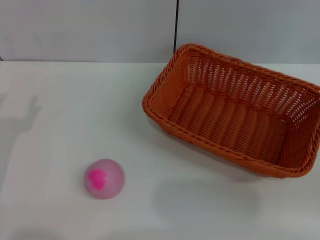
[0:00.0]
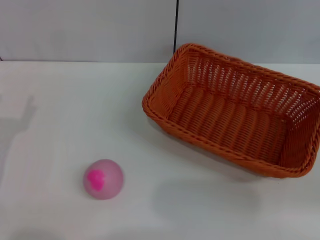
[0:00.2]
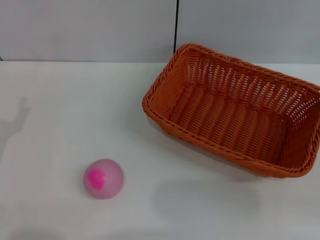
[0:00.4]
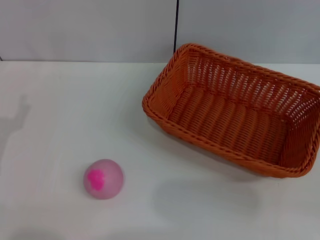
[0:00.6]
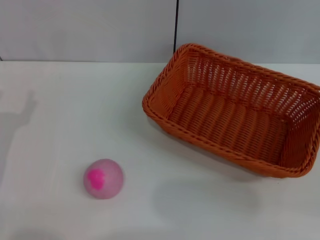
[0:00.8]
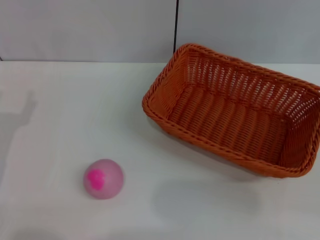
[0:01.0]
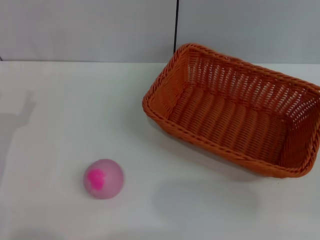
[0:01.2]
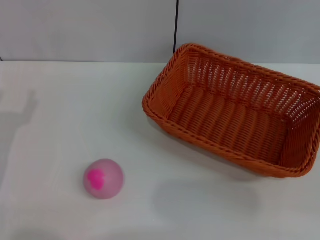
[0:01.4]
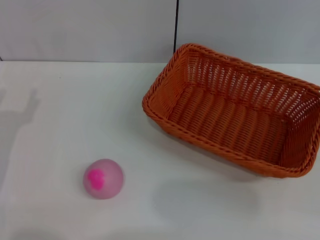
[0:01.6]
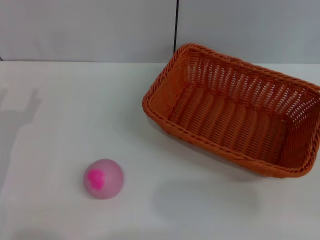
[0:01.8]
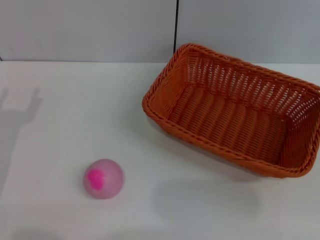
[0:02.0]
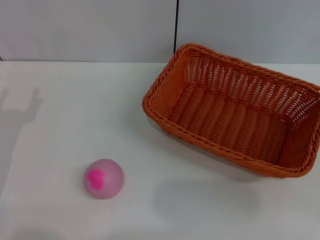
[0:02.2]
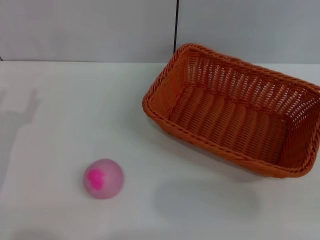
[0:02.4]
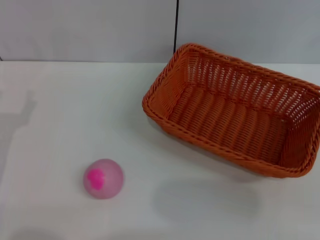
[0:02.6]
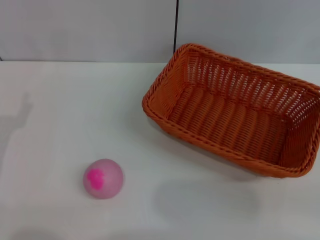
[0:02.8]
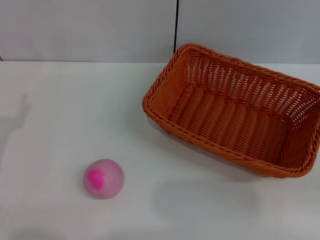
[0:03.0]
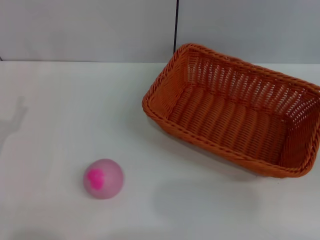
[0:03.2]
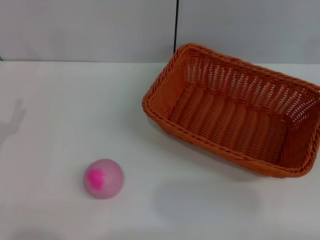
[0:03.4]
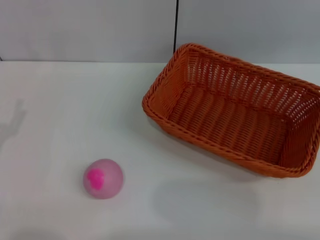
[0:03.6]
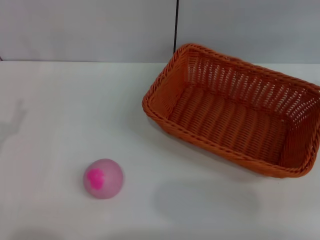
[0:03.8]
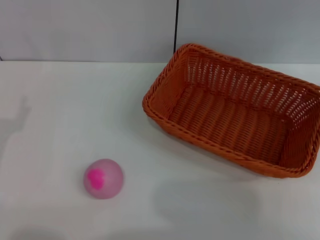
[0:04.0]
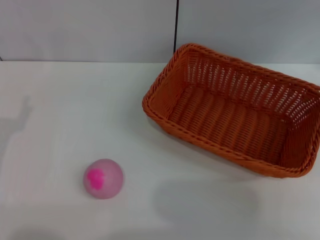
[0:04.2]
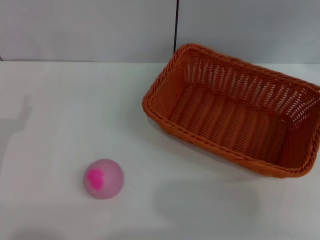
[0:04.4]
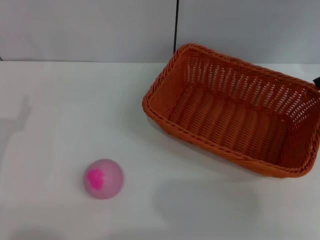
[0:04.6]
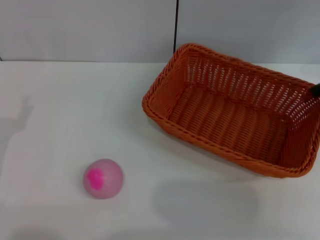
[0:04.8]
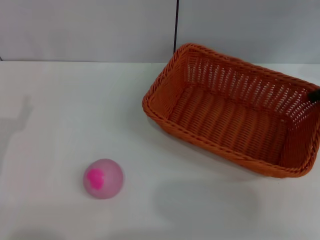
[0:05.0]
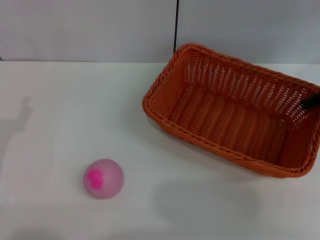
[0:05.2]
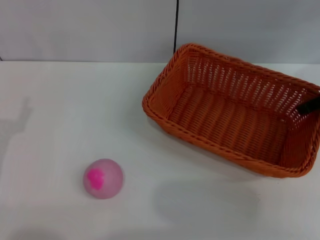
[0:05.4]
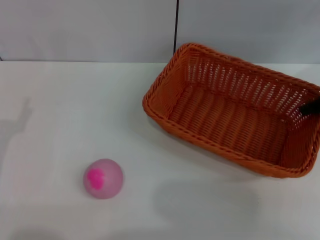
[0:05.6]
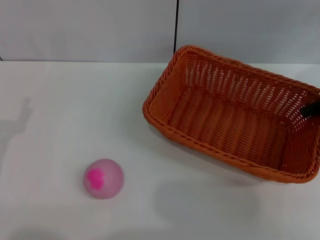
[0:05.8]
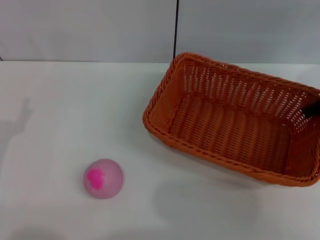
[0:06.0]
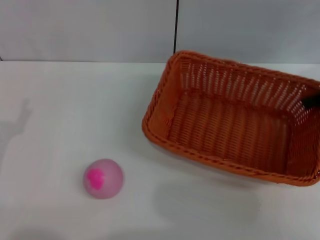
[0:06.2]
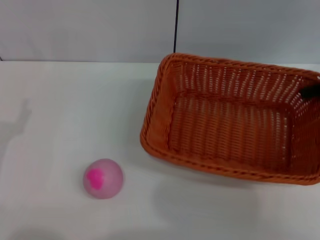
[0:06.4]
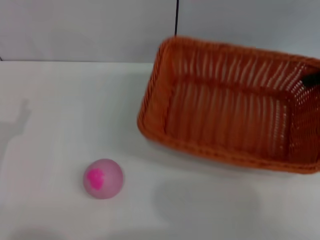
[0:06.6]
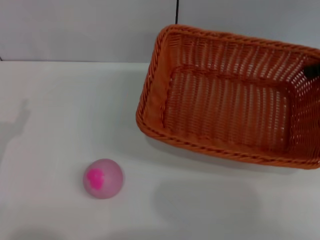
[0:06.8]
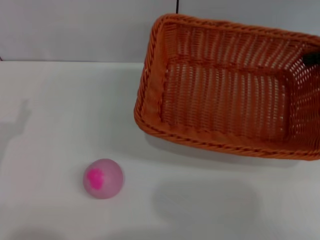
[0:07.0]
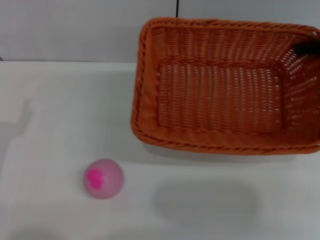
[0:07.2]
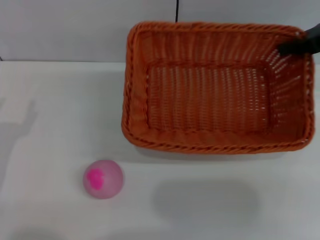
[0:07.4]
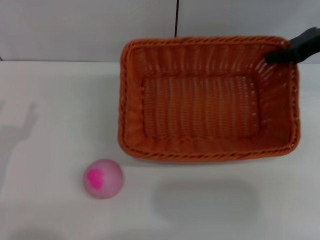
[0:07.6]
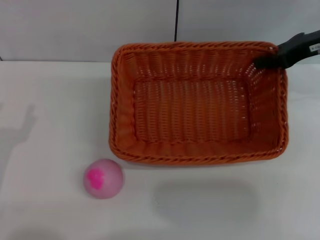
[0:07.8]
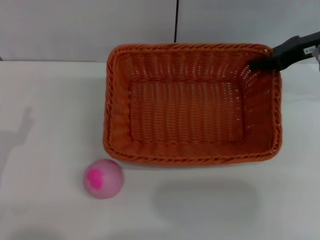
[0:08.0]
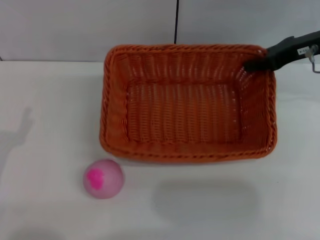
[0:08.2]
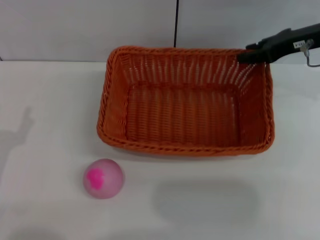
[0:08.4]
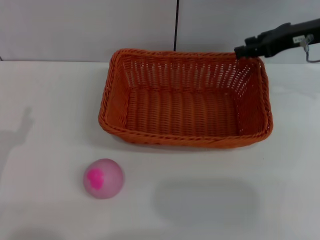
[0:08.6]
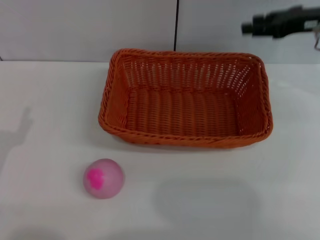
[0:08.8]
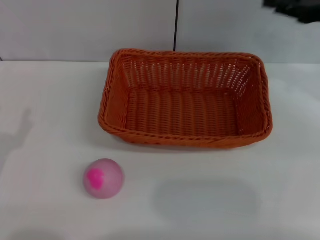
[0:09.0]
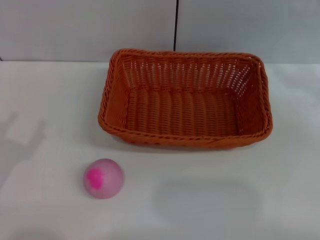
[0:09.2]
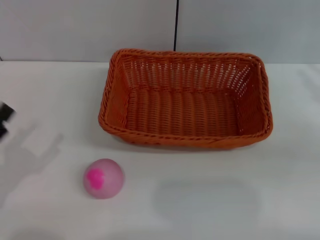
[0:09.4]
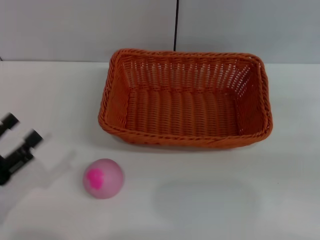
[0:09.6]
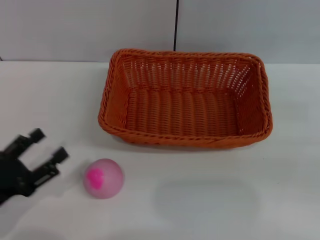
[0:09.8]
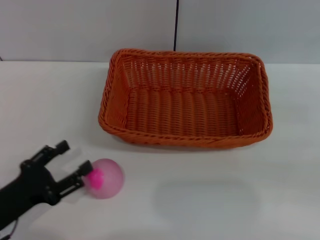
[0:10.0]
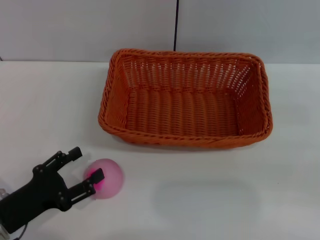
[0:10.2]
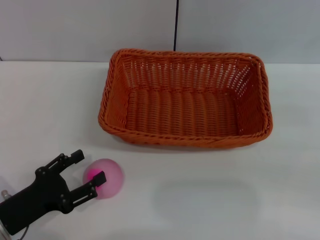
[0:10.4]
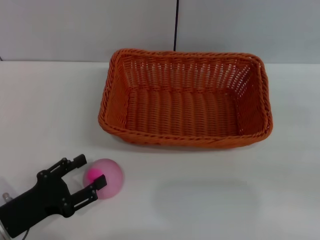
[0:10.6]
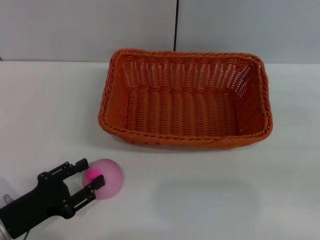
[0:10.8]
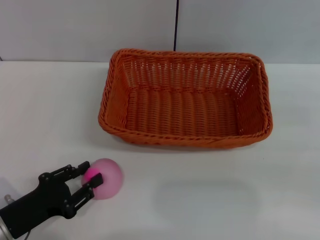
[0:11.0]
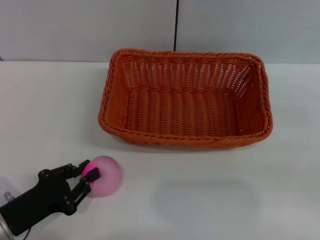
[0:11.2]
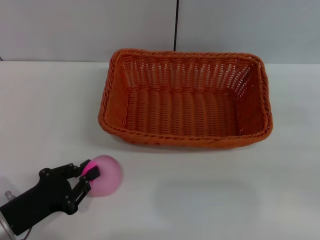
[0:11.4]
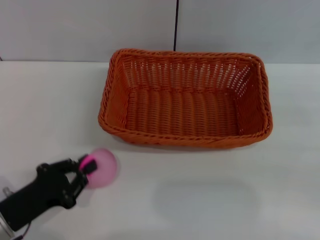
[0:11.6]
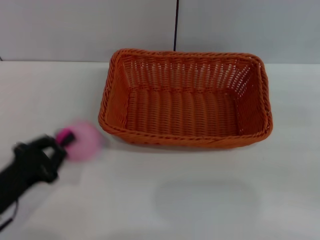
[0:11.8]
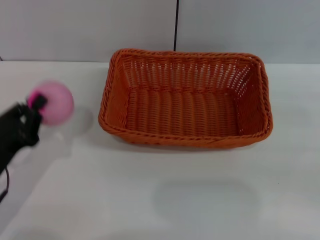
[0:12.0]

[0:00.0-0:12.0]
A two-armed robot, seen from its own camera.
Step, 0:00.0 to 0:06.8: Pick up the light basket with the right gripper.
Step, 0:07.0 to 0:09.0: Place the light basket in the center of view with the right gripper.
Step, 0:09.2 to 0:11.8: Pick up the peach with the left gripper.
0:04.4 to 0:06.0: The right gripper shifts roughly 10 cm downward, and closes.
0:06.0 to 0:07.6: The right gripper changes place by about 5 cm.
0:07.6 to 0:09.0: The right gripper is displaced backward by about 5 cm, and opens up.
0:09.0 to 0:10.4: The right gripper heads backward, to the right and downward, covering some 20 cm, while the left gripper moves approximately 5 cm.
0:10.4 to 0:12.0: The left gripper closes.

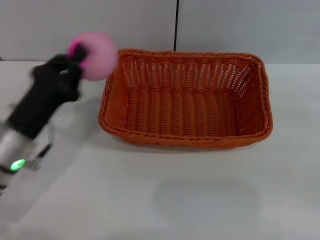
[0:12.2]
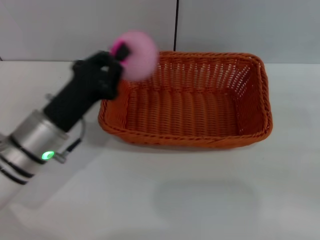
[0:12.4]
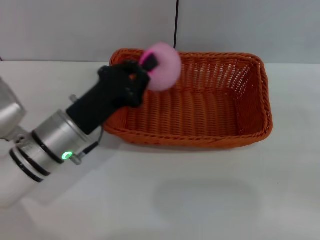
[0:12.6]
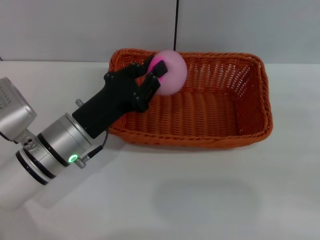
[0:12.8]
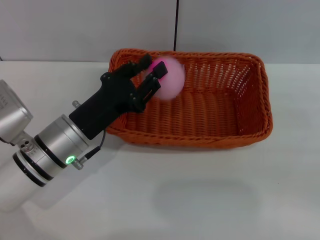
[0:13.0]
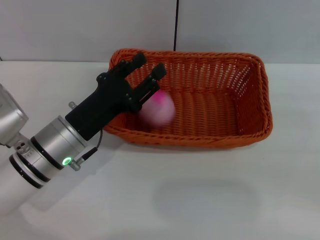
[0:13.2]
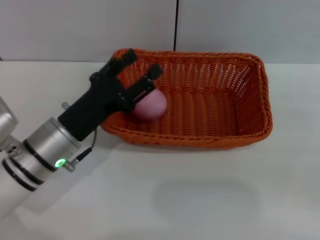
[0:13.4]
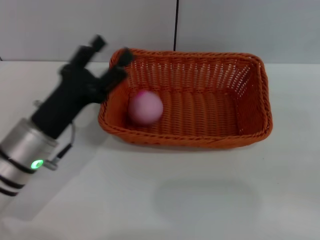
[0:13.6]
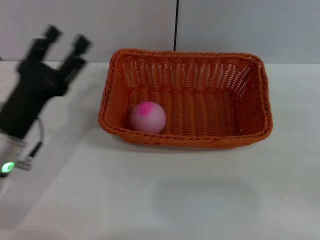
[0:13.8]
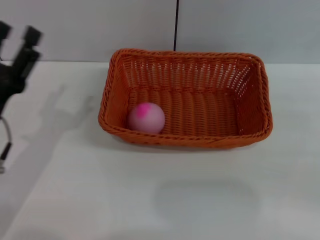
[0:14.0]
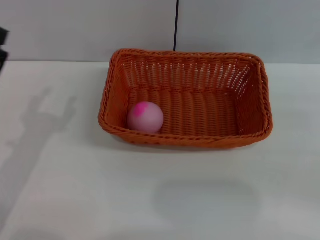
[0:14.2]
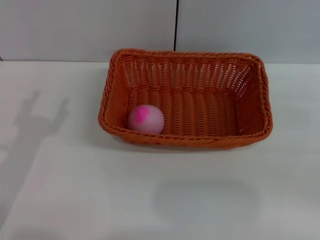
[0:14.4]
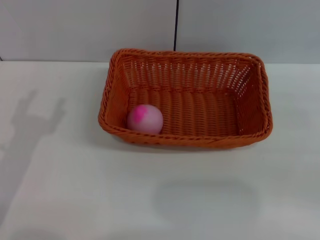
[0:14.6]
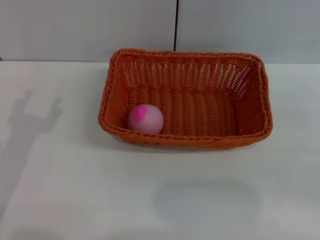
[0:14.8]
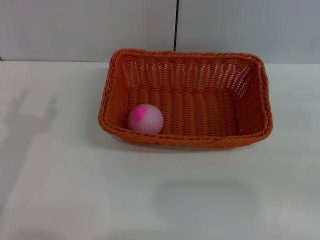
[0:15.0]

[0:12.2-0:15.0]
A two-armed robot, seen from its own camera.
Step, 0:12.2 to 0:13.2: Place the peach into the basket with the left gripper.
0:12.2 to 0:13.6: The left gripper opens.
0:13.6 to 0:15.0: The left gripper shifts approximately 10 cm to the left.

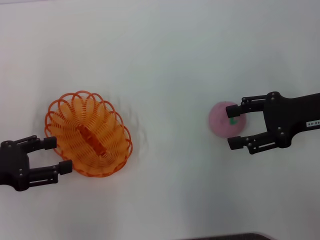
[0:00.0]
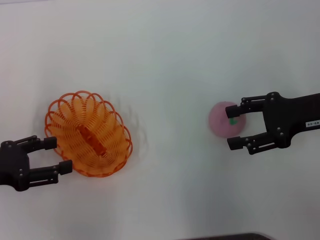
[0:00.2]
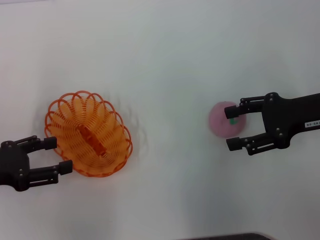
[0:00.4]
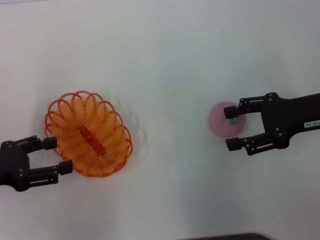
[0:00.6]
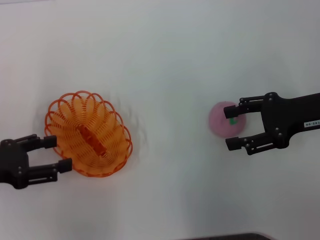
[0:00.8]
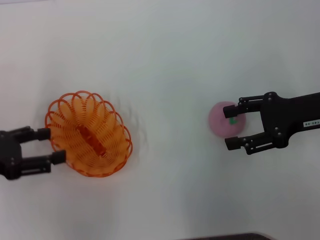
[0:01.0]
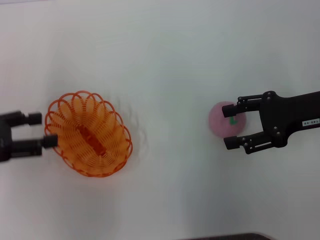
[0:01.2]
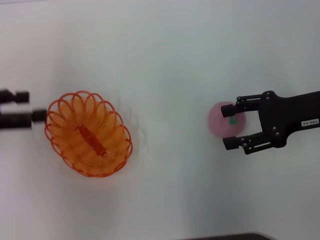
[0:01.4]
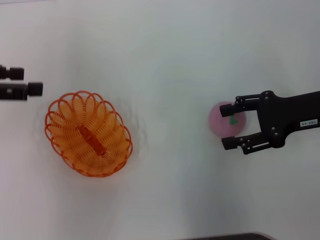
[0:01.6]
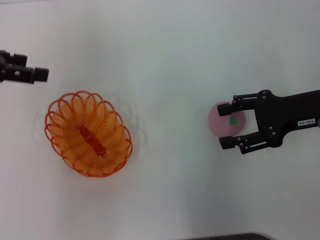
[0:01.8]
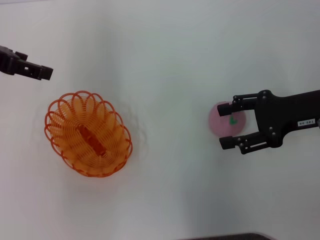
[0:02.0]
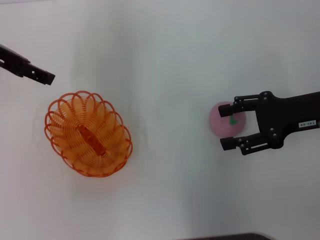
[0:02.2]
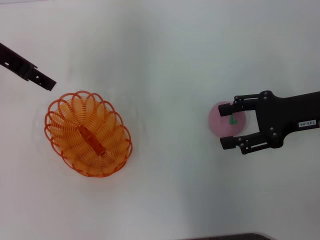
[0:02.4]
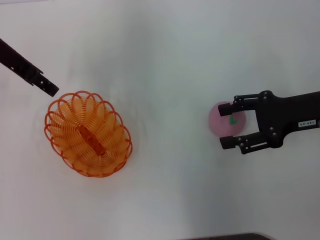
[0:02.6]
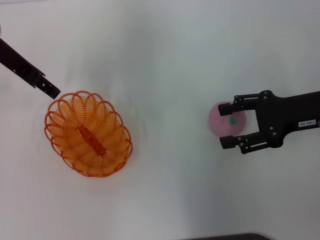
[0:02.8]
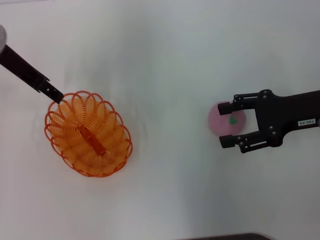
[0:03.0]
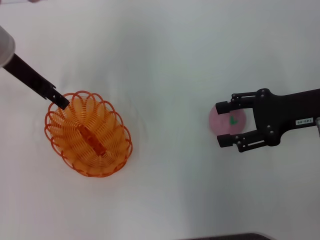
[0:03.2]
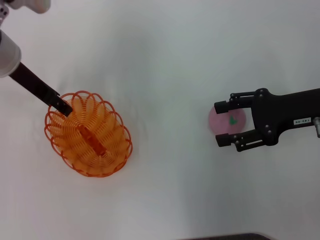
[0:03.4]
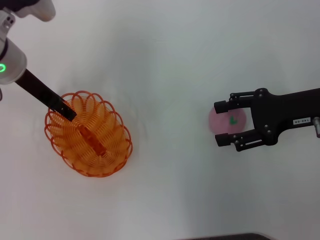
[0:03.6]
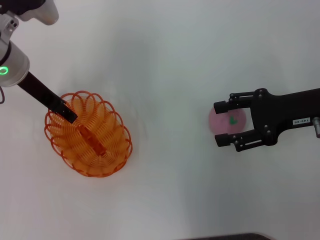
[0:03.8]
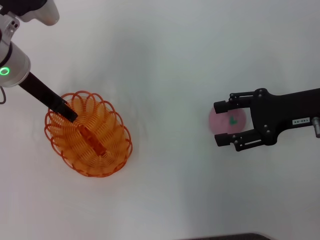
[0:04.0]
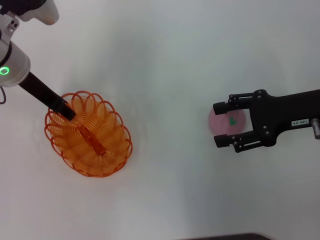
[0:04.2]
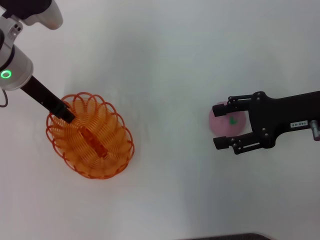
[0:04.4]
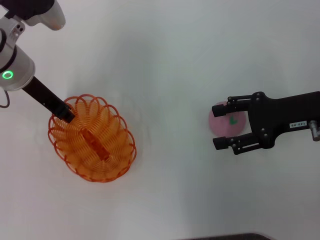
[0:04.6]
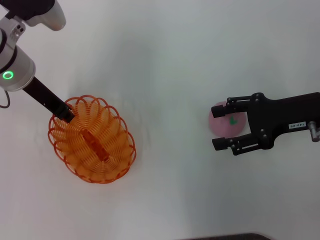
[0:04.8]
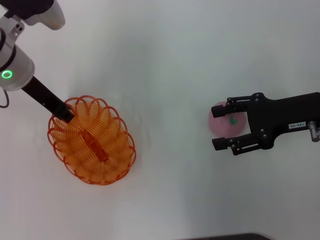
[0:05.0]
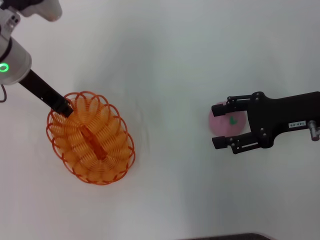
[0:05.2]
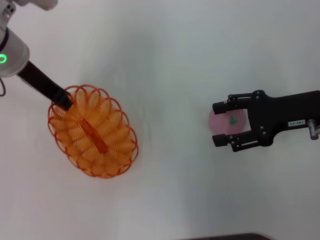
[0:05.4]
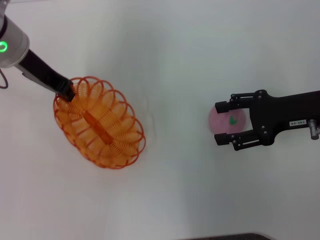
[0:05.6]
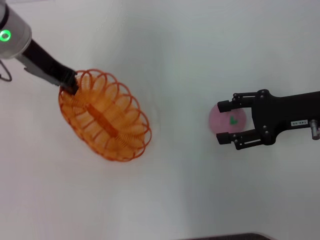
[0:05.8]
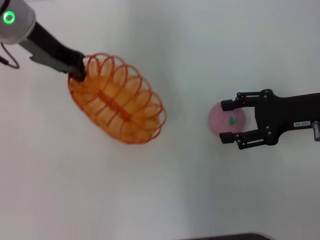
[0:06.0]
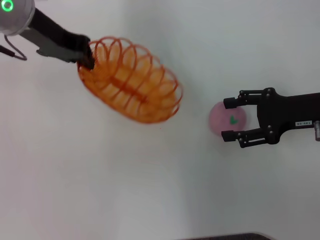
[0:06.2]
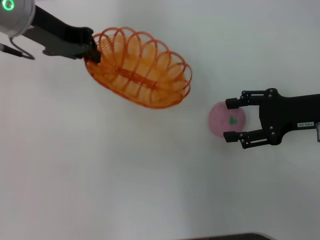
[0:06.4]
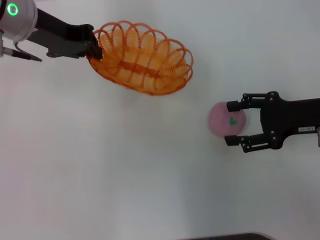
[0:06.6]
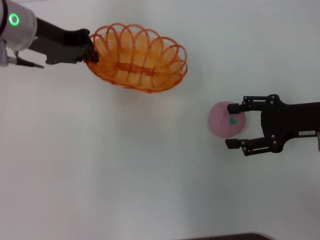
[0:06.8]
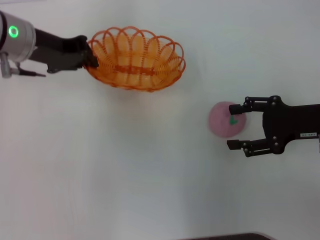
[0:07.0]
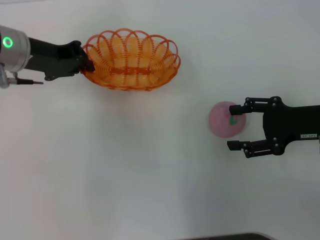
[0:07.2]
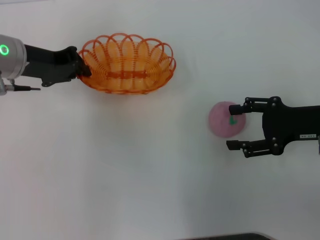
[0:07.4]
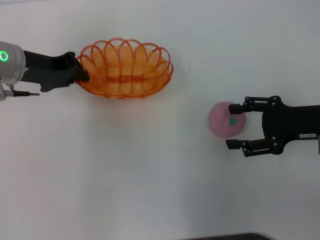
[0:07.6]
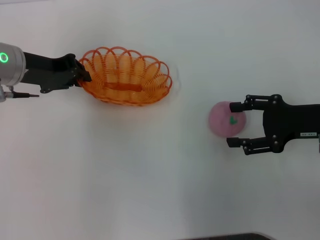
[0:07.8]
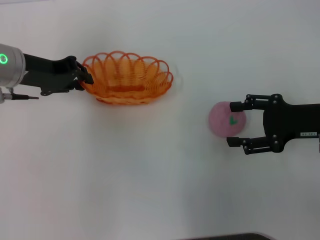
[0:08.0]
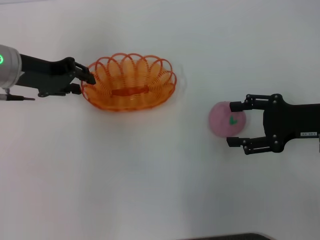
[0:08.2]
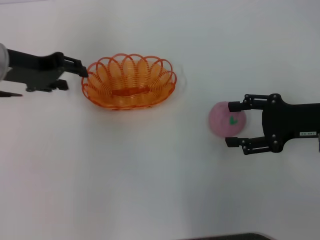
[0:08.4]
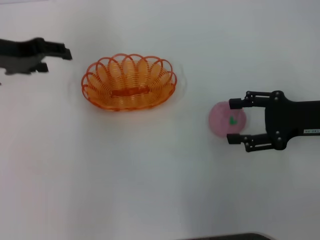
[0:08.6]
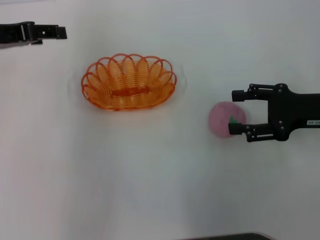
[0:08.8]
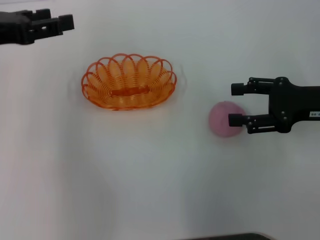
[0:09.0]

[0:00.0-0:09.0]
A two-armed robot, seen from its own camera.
Step, 0:00.0 to 0:05.4: Pick up the basket with the left gripper.
Step, 0:05.6 to 0:08.4: Place the basket in the center of view with the left gripper.
0:00.0 to 0:01.6: The left gripper is displaced upward and forward by about 15 cm.
0:01.6 to 0:03.0: The left gripper moves to the right and forward, about 15 cm.
0:03.0 to 0:04.4: The left gripper shifts roughly 5 cm downward, and closes.
0:04.4 to 0:06.0: The left gripper is displaced upward by roughly 5 cm, and closes its fingers.
0:06.0 to 0:07.6: The left gripper travels downward by roughly 10 cm.
0:07.6 to 0:09.0: The left gripper shifts approximately 10 cm upward, backward and to the left, and opens.
